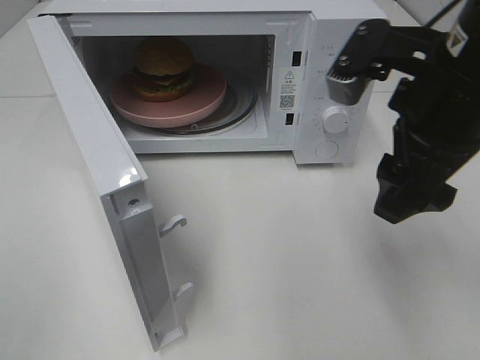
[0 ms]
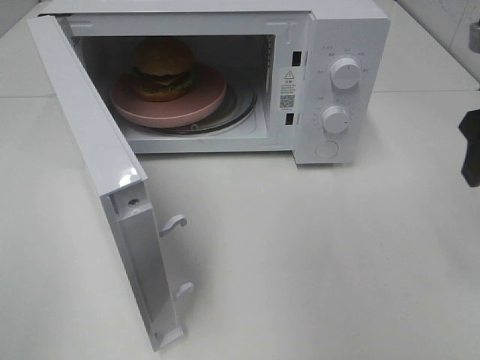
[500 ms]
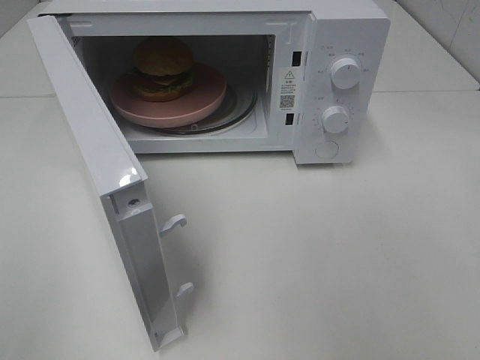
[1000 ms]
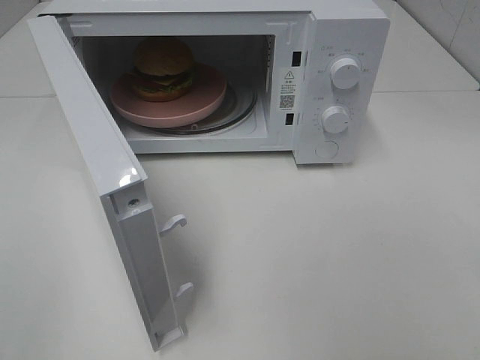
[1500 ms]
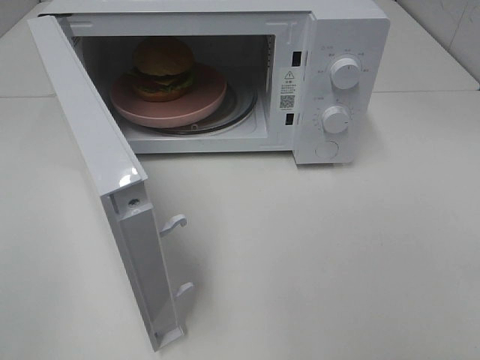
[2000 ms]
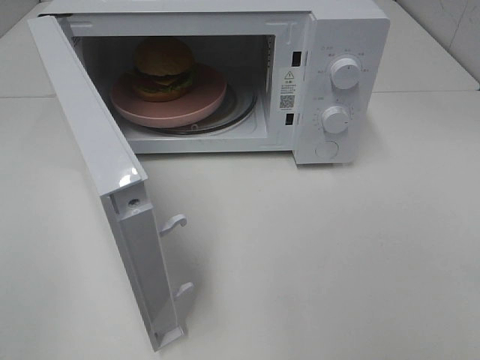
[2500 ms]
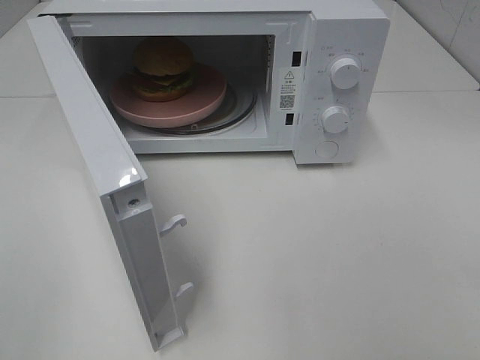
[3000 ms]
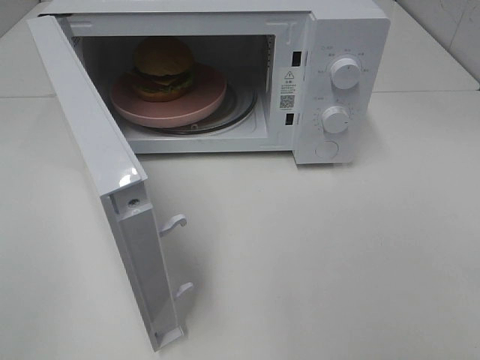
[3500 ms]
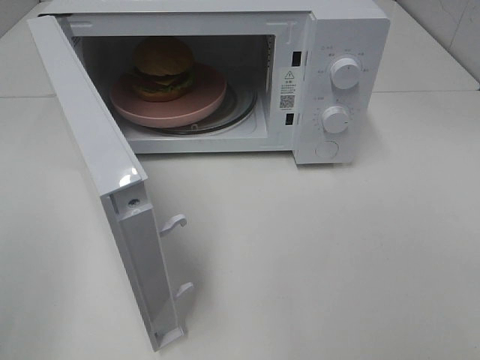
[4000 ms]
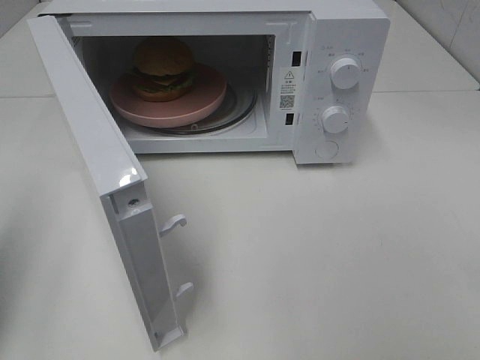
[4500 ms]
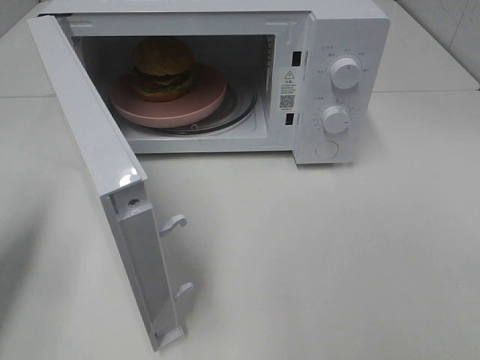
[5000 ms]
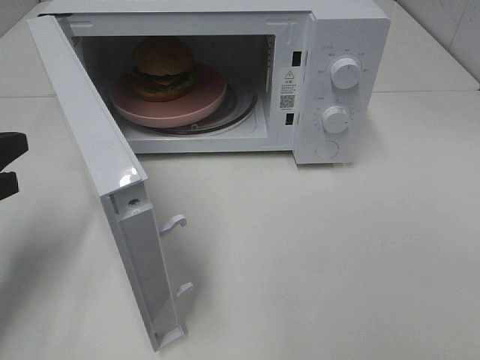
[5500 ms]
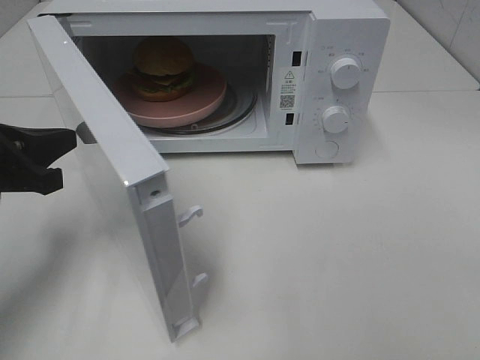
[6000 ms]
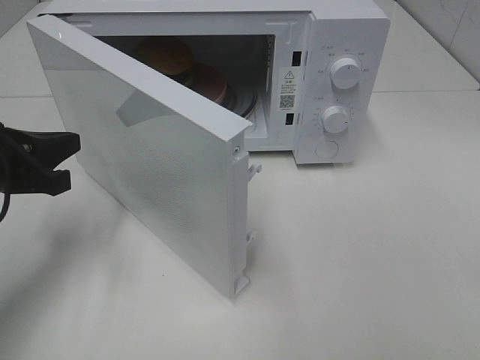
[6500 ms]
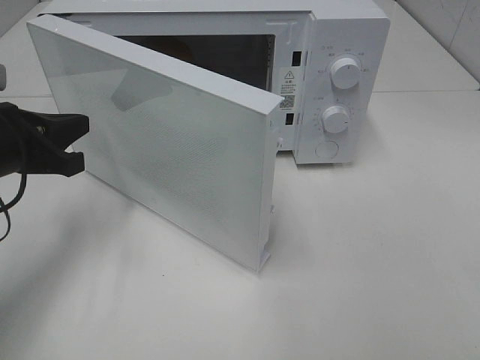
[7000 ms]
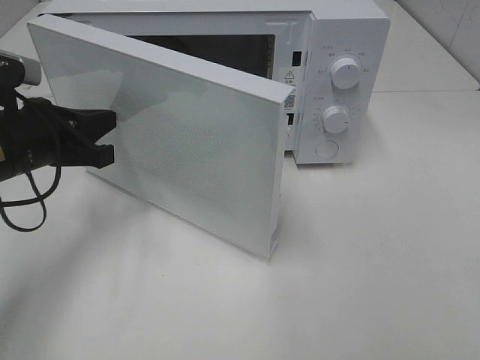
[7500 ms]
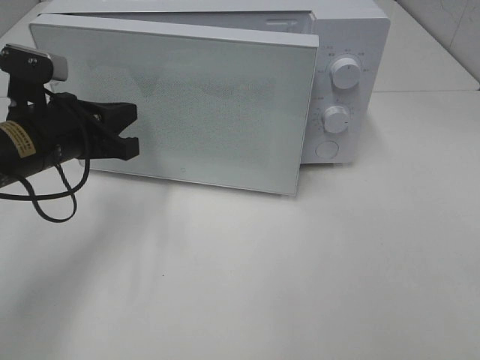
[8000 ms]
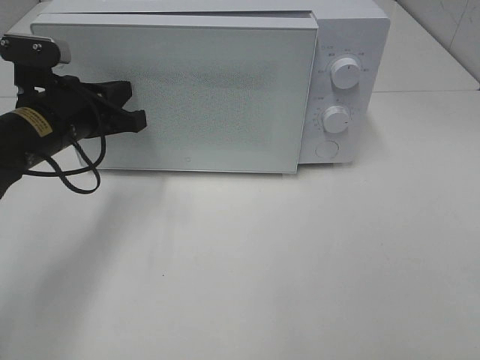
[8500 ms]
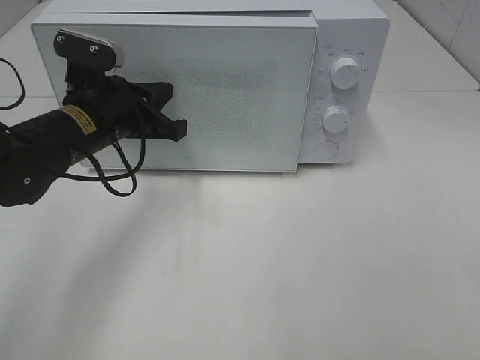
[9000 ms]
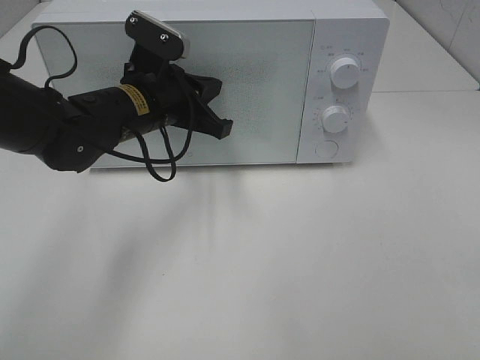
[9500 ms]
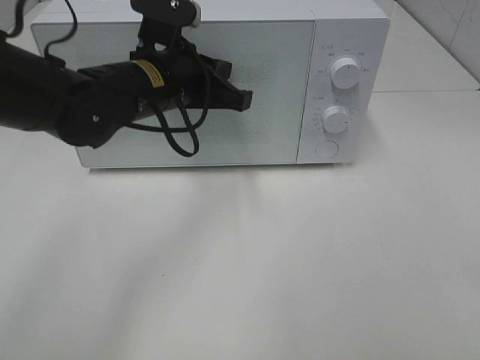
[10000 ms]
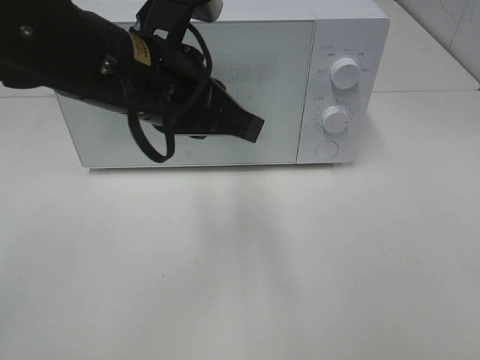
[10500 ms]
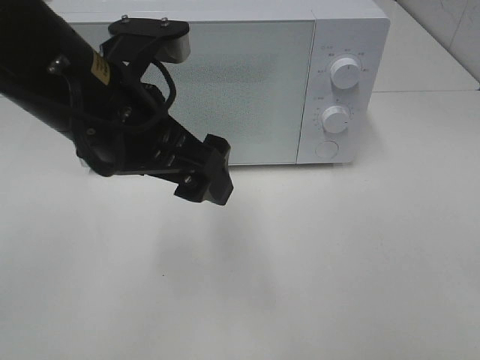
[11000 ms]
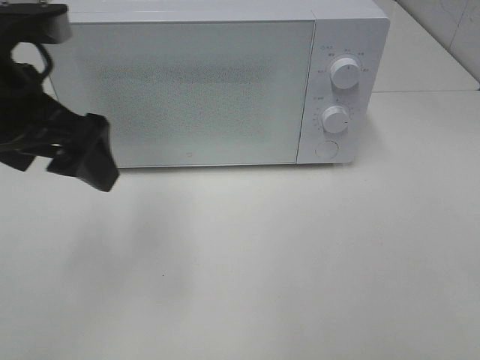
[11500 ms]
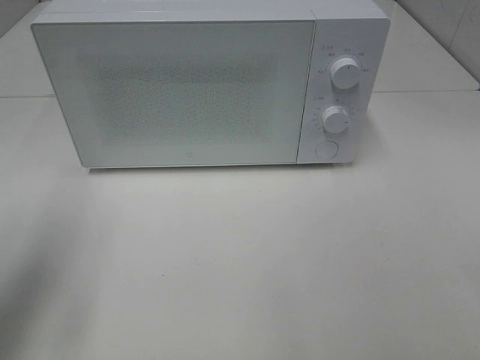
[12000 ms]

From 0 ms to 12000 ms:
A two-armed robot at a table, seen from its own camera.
Task of the whole recording: Heat the burger.
Step, from 0 ms to 9000 ms: Left hand: close the microwave door.
From 0 ms to 2000 ms: The right gripper shifts approximately 25 cm backward and to the right.
From 4000 ms to 6000 ms: The left gripper shifts some 25 cm forward and downward, and closes up.
From 6000 ms to 8000 ms: The left gripper moves to the right and forward, some 10 cm.
From 8000 ms to 10000 ms: The left gripper moves to the right, approximately 10 cm.
From 10000 ms to 12000 ms: The left gripper is displaced to the left and backward by some 25 cm, and opens.

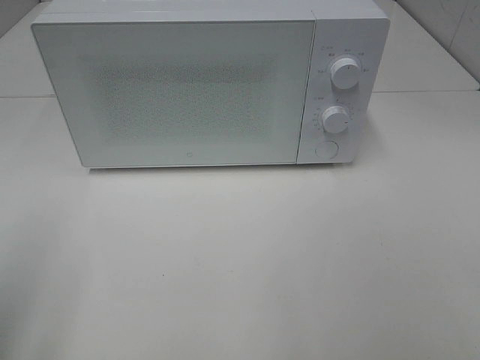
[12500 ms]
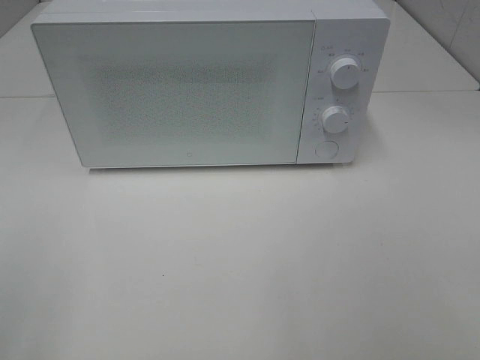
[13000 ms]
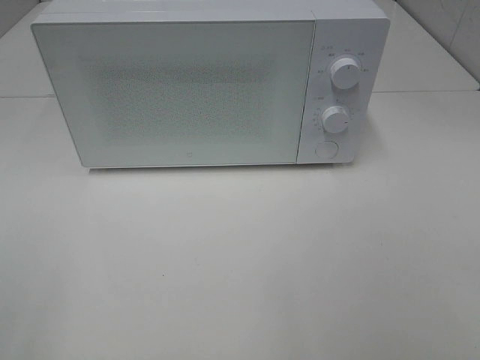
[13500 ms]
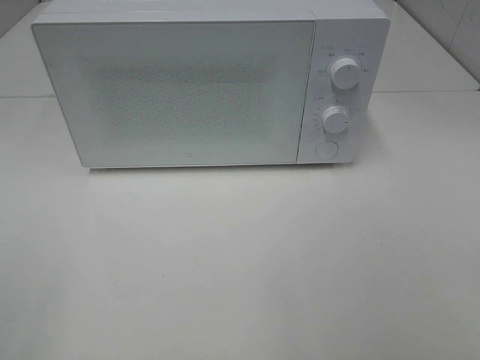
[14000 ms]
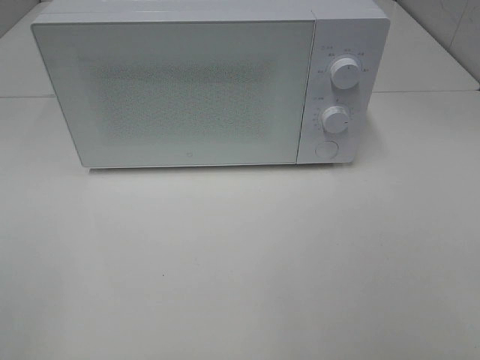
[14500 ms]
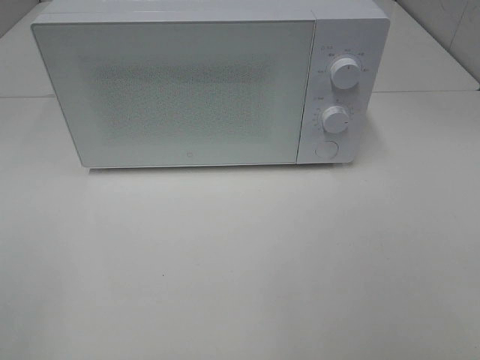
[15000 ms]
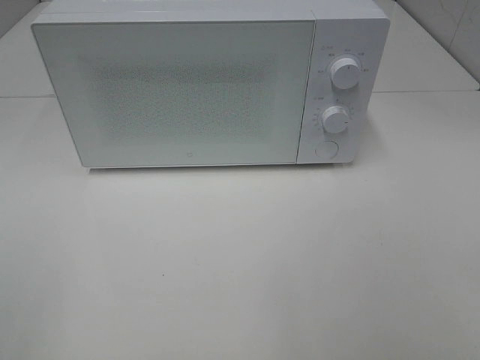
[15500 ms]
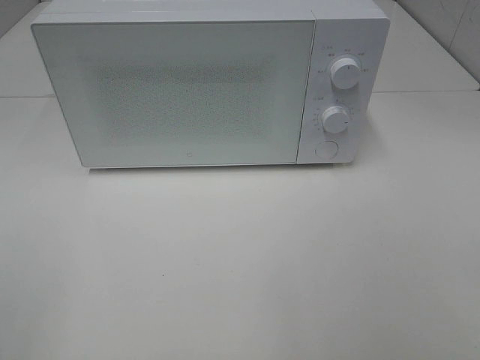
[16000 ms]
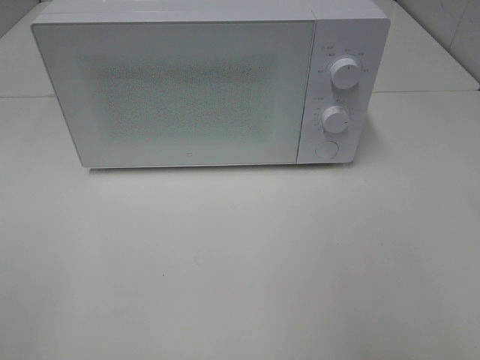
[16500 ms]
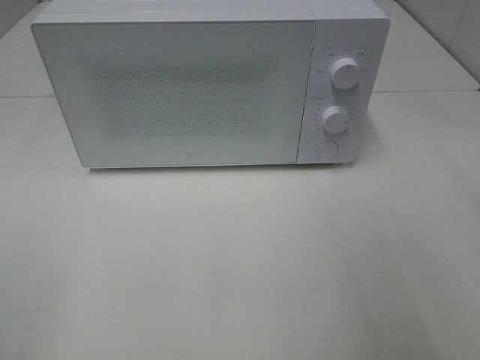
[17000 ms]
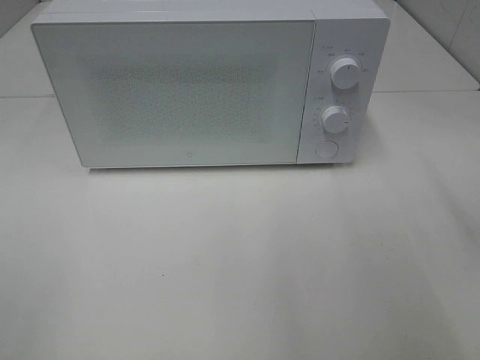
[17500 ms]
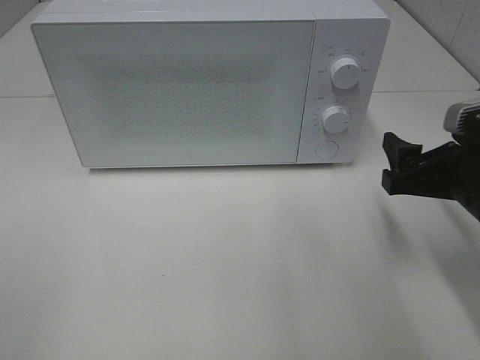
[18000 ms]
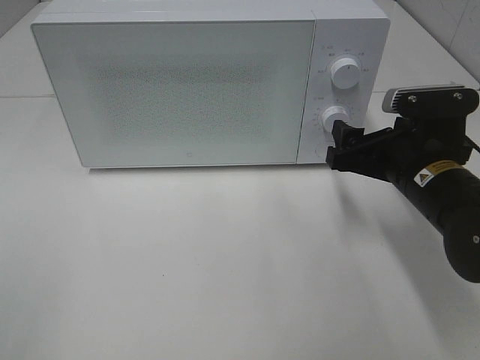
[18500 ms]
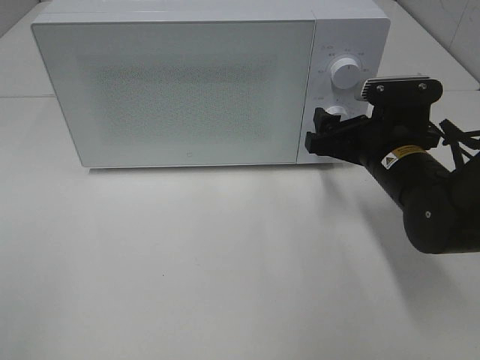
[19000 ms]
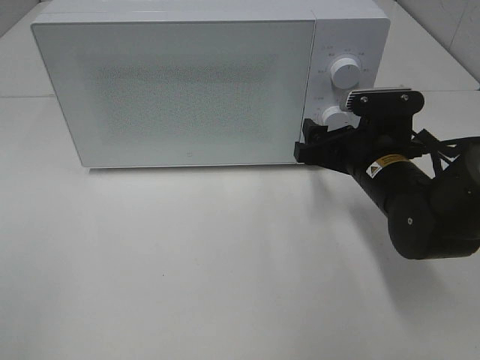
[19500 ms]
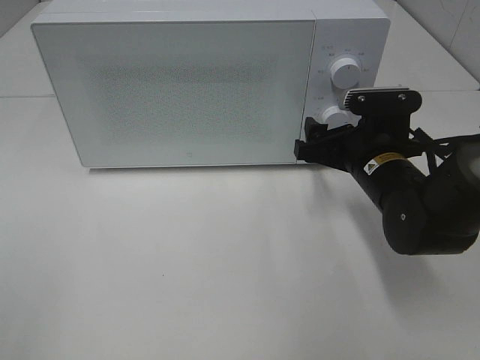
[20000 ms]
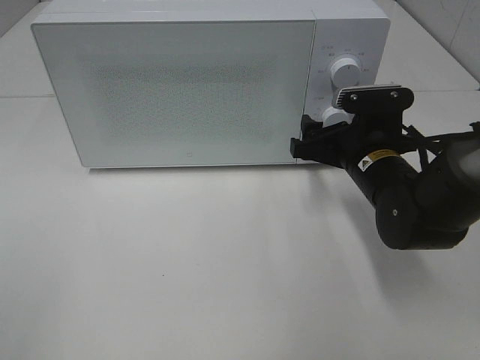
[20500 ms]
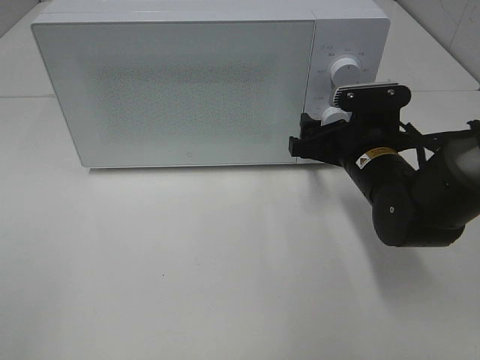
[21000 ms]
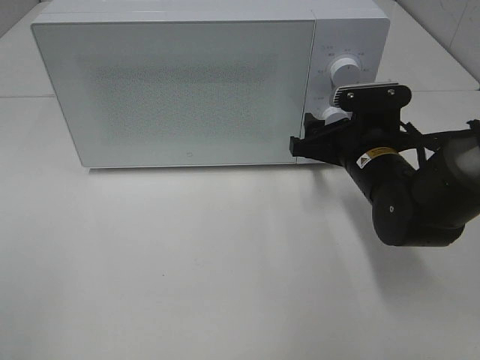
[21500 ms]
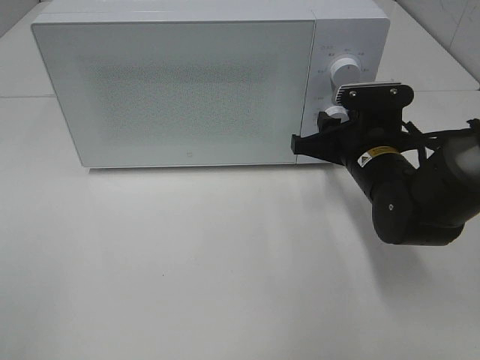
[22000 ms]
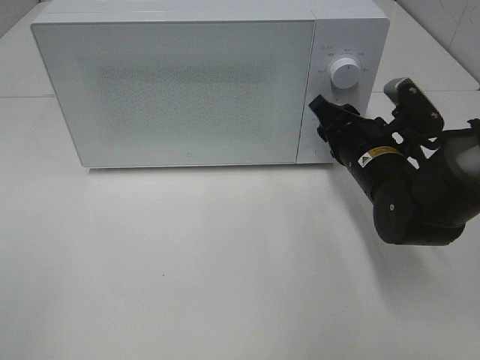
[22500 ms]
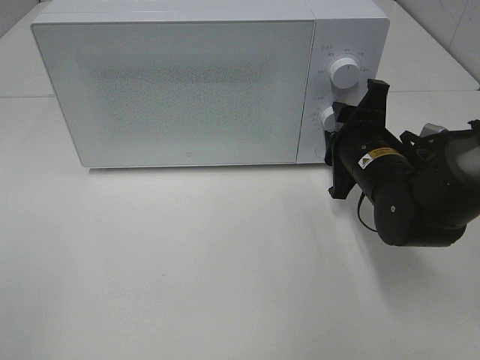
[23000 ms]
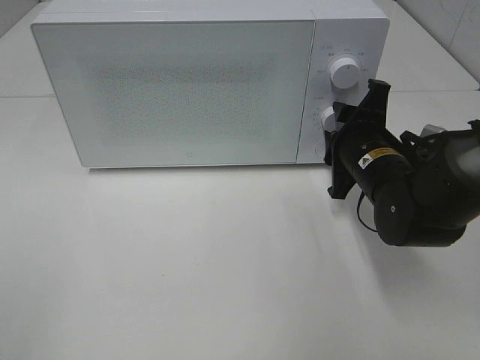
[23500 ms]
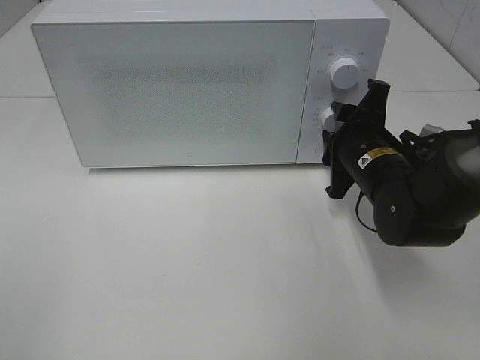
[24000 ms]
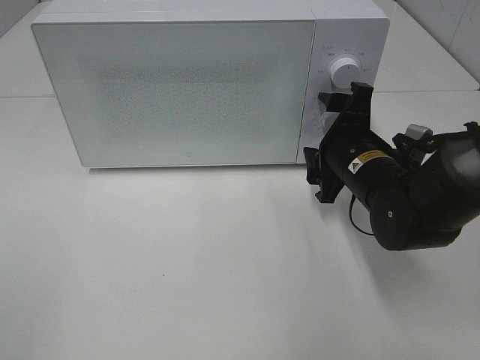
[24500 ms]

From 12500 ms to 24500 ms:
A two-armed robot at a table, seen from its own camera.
Task of the whole recording: Heat the burger.
Step, from 12500 ms to 24000 ms: Right hand: twist timer button.
From 16500 ms to 18500 ms: The right gripper travels forward, downward and to the left by about 30 cm.
From 18500 ms to 20500 ms: The right gripper ends up roughly 5 cm from where it was.
From 20500 ms to 22500 ms: The right gripper closes up.
From 22500 ms to 24500 ms: The right gripper opens up.

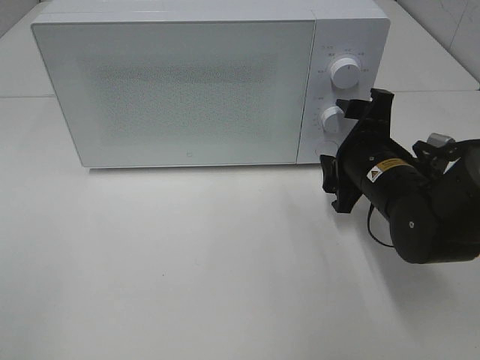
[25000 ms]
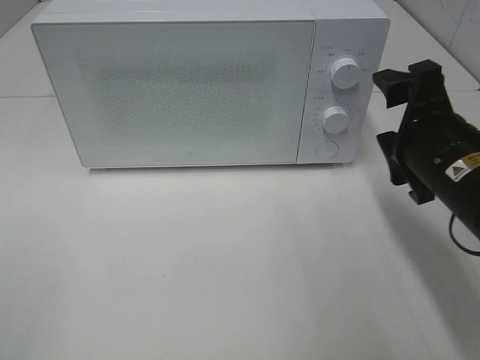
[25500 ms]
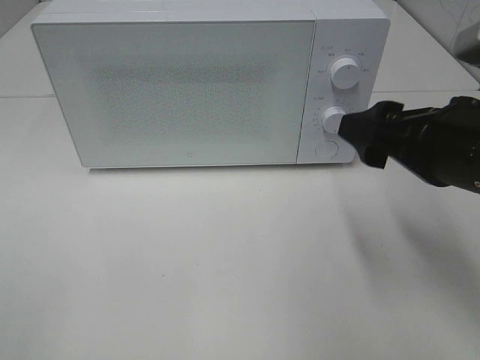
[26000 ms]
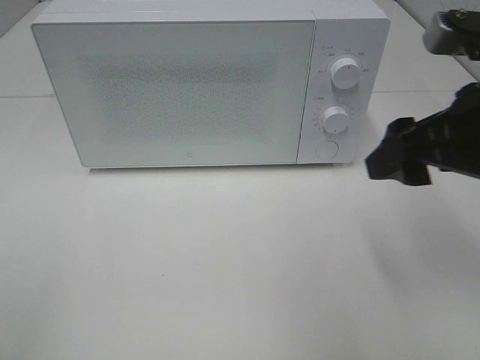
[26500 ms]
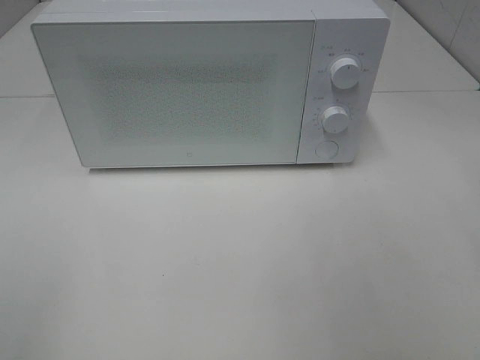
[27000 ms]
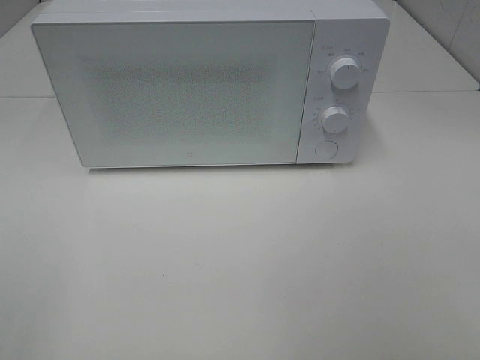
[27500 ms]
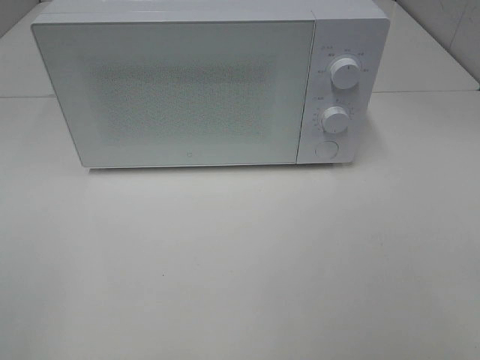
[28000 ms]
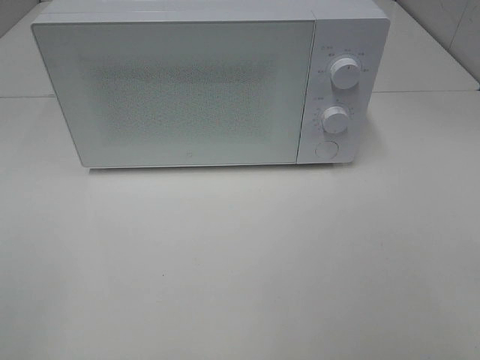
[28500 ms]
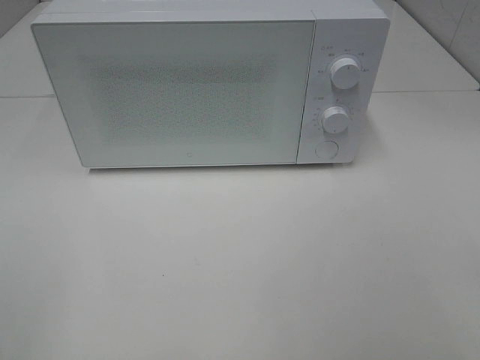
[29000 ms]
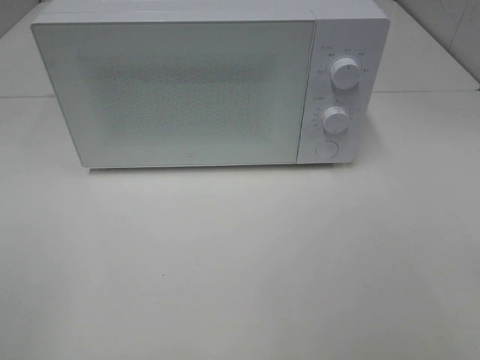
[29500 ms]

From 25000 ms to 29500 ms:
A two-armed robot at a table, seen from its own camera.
Task of the whole recording: Heat the burger.
From 25000 ms to 27000 ms: The right gripper shifts about 25 cm upward, to the right and backward.
